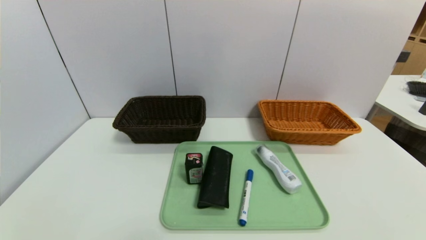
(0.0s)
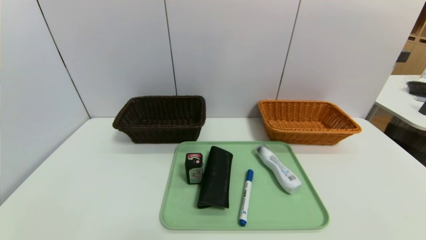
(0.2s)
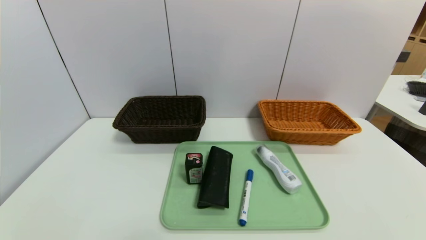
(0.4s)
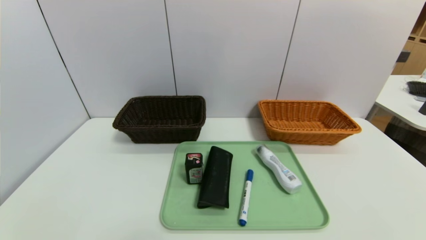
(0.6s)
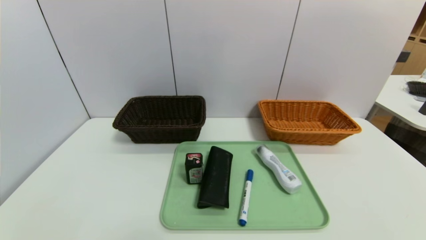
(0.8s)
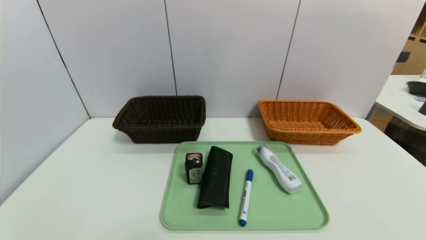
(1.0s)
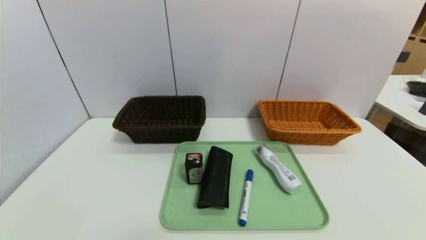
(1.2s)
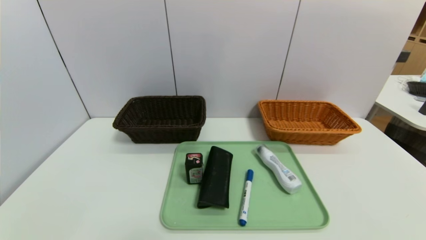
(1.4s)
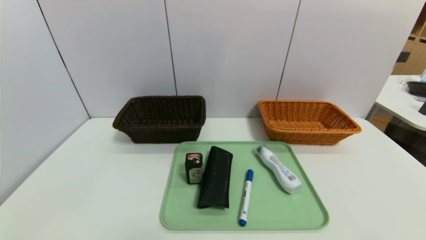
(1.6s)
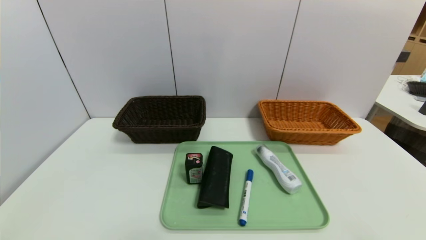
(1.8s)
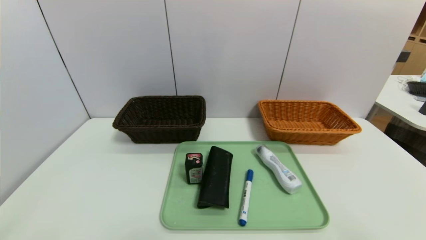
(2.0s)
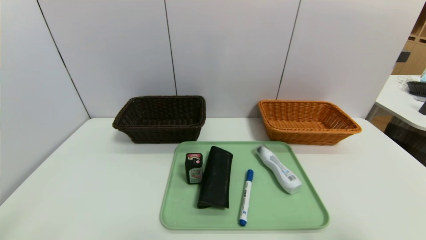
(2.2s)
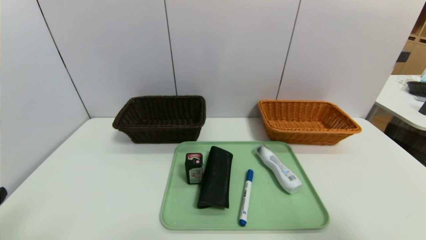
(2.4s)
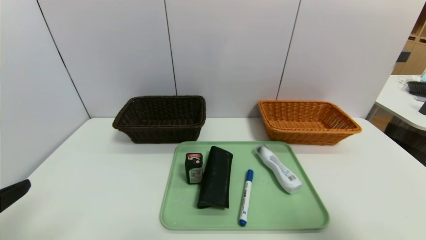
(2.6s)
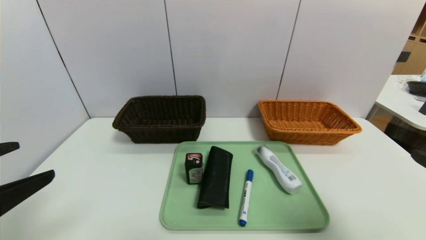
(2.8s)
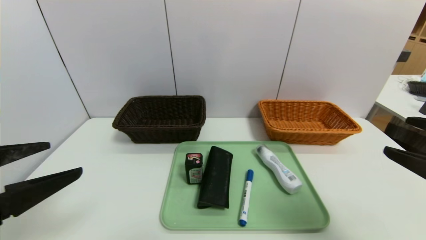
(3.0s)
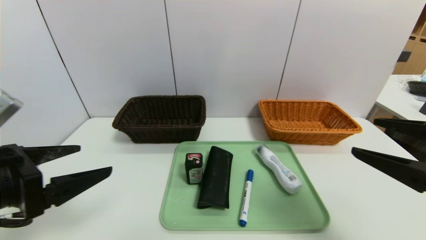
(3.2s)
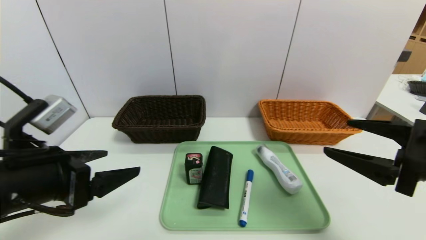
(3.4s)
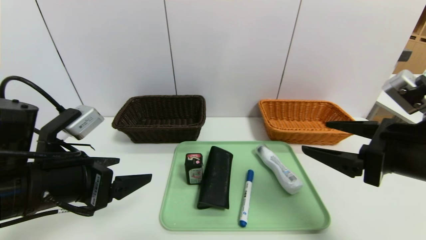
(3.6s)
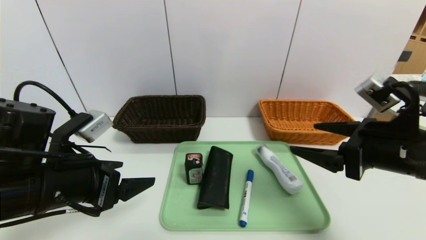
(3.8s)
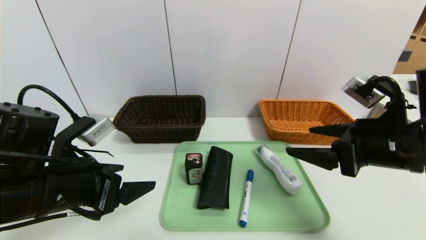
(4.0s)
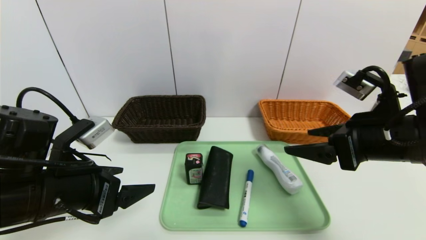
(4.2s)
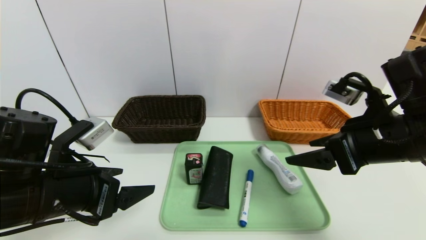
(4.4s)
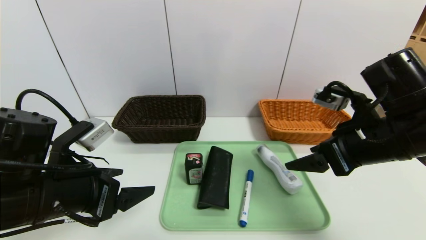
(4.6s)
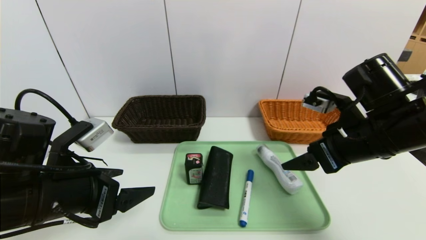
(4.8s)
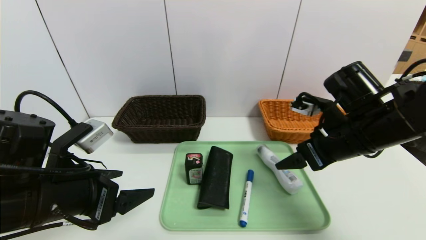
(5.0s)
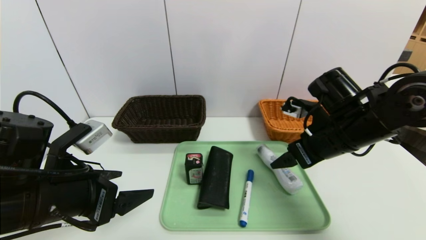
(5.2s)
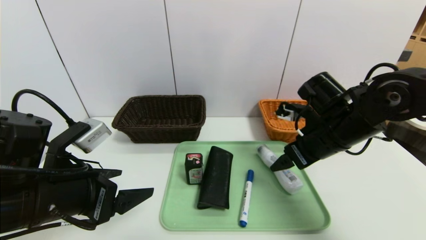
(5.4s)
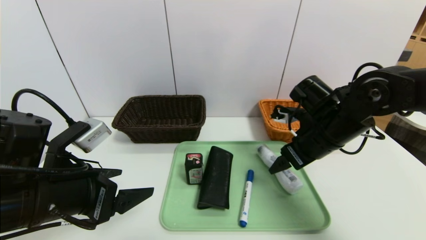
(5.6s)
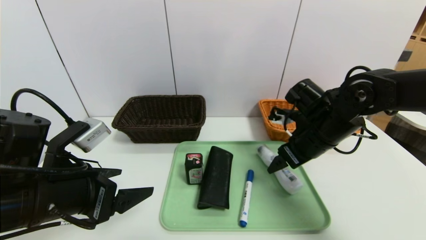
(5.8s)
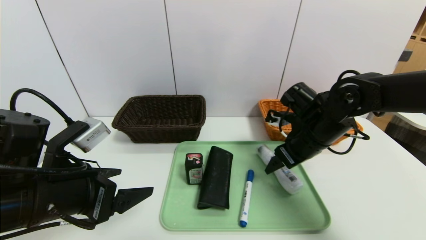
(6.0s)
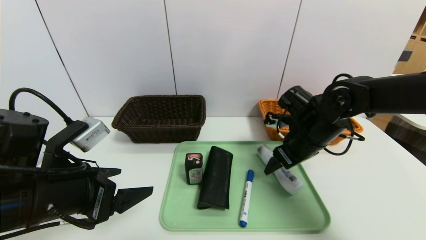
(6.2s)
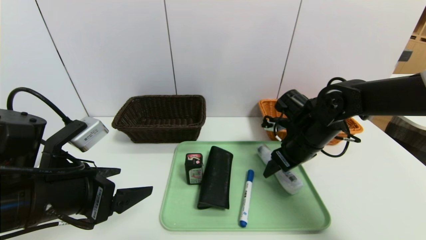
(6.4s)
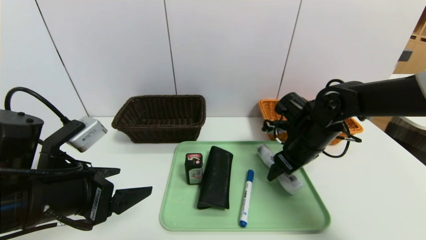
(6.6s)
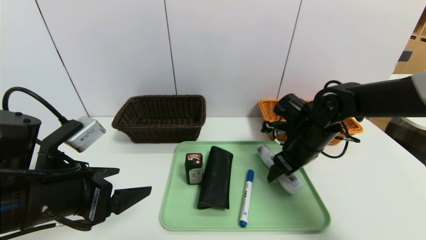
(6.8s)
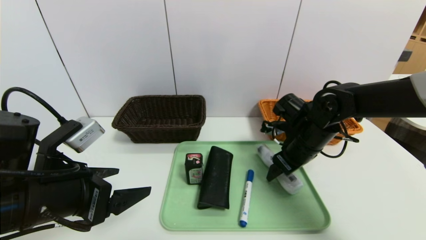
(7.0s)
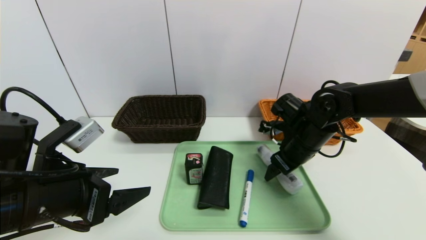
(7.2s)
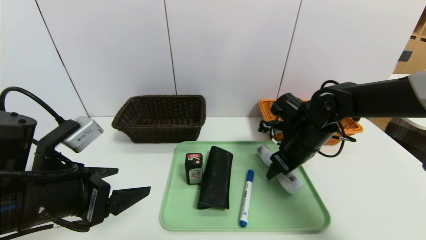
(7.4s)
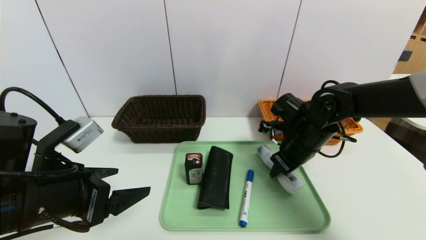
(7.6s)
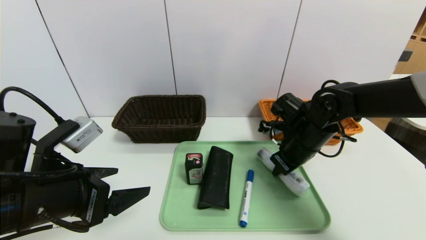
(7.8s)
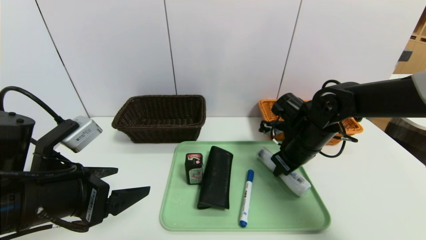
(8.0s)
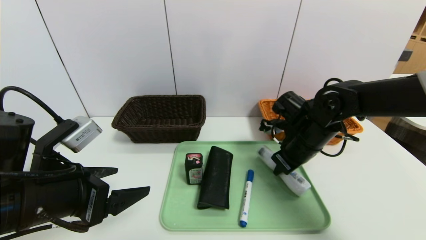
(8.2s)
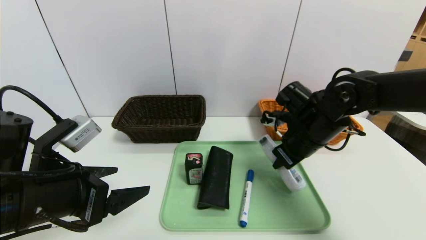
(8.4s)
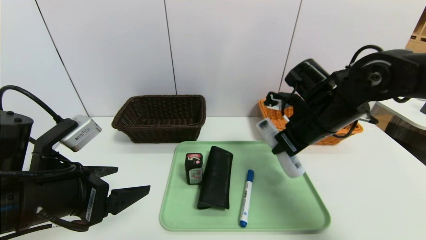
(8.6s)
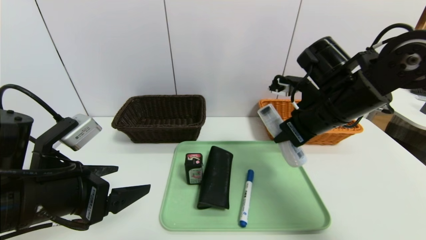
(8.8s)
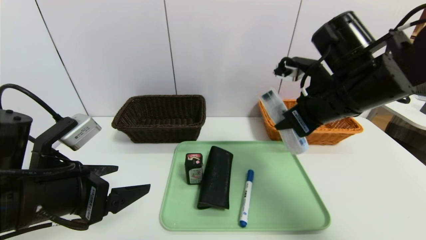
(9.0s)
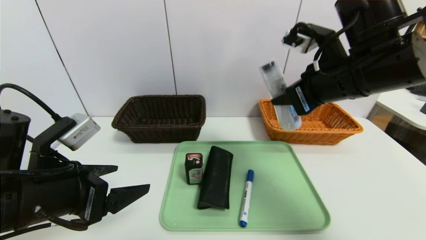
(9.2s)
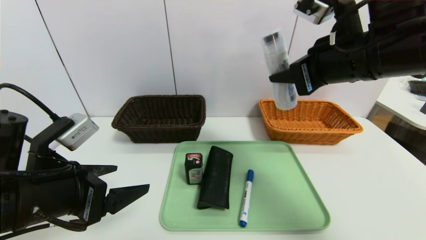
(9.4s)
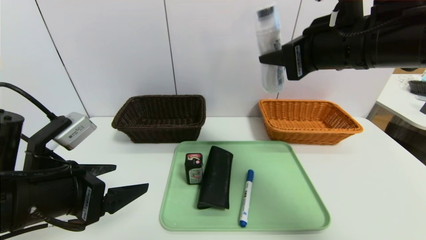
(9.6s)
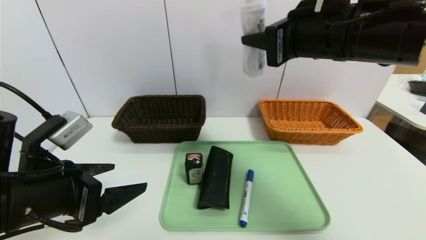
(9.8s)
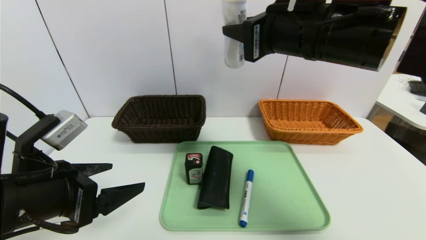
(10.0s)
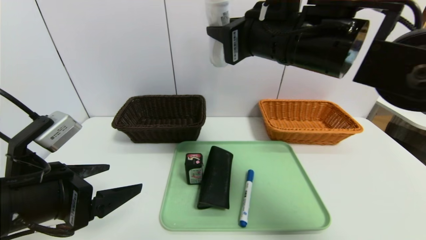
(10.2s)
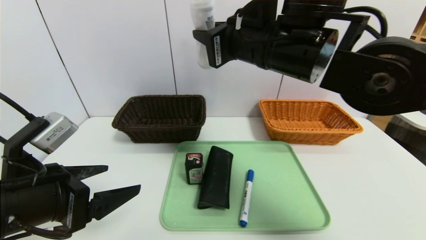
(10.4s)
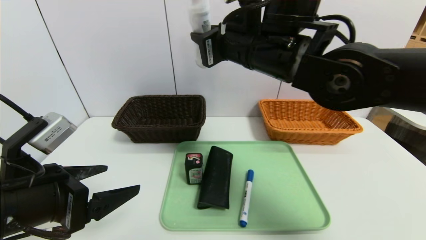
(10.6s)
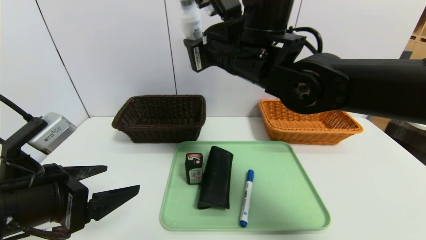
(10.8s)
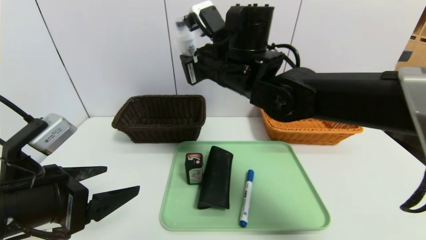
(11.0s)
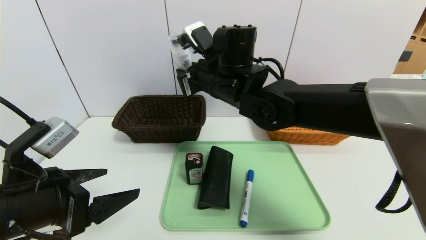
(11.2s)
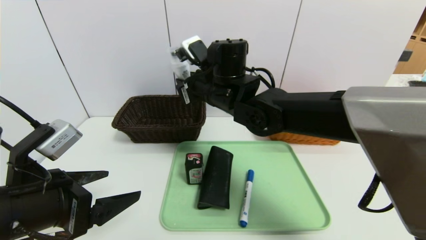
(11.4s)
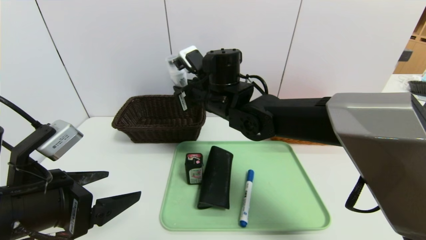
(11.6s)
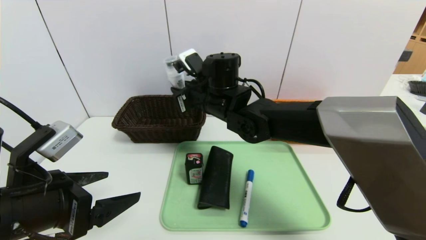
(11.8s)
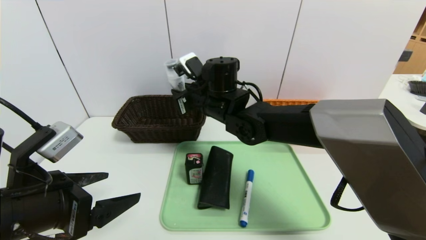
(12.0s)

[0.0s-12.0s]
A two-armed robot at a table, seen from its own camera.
Task of the whole recording: place the food in the right basket with the right gripper, and place the non food items in the left basket with the left gripper.
1.6s to 3.0s: The two grippers go some 15 cm forward and upward.
3.0s to 4.4s: The left gripper travels to the right, forward and downward by roughly 10 cm. The right gripper shifts some 15 cm forward and to the left.
4.4s to 6.0s: The right gripper is displaced forward and downward by some 15 cm.
6.0s to 7.6s: The right gripper closes up.
7.6s to 9.0s: The right gripper travels upward and backward by roughly 15 cm.
9.0s to 10.4s: The right gripper shifts approximately 15 cm to the left and upward.
10.4s to 12.0s: The right gripper goes some 15 cm downward, forward and to the left.

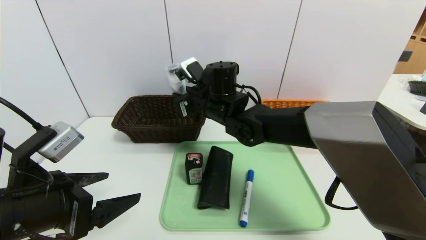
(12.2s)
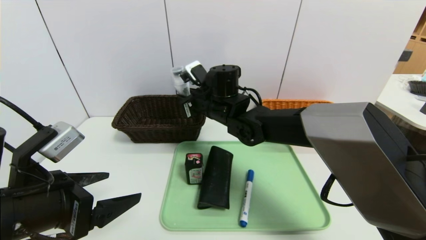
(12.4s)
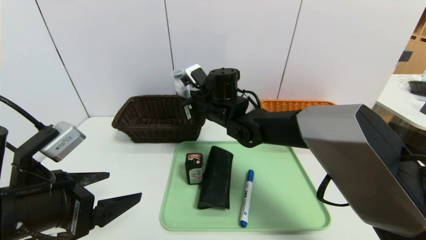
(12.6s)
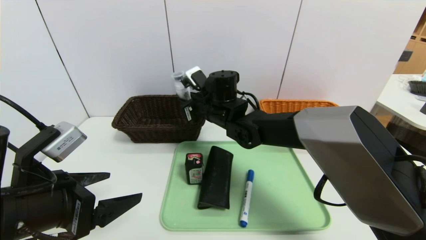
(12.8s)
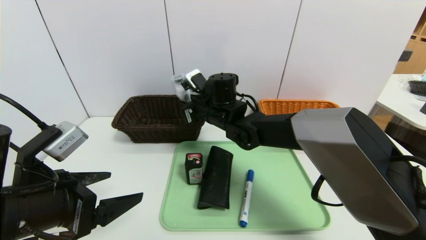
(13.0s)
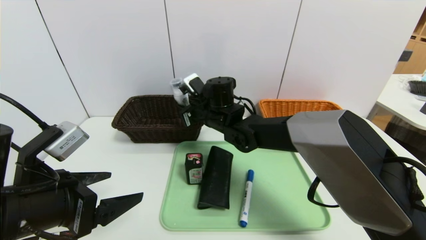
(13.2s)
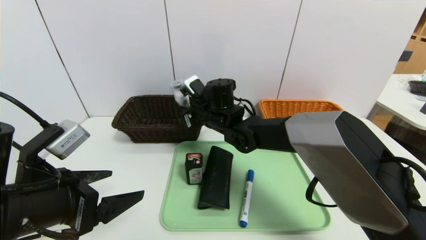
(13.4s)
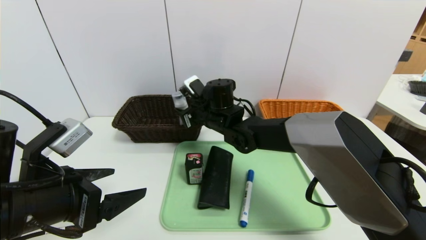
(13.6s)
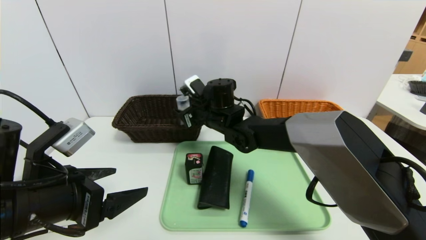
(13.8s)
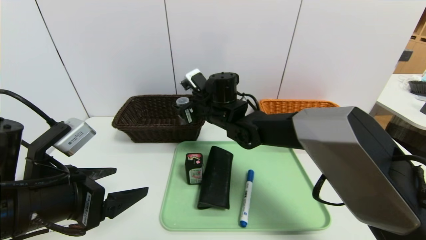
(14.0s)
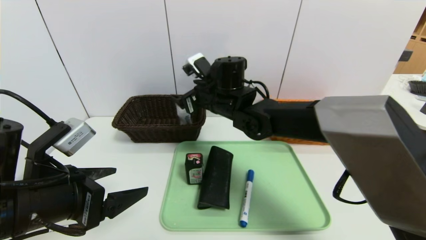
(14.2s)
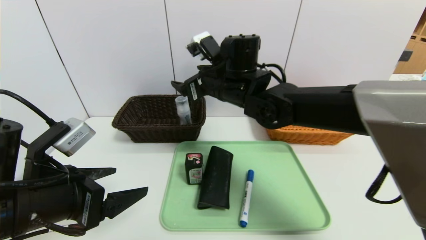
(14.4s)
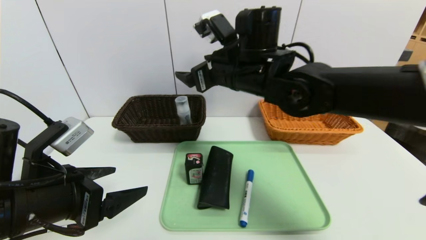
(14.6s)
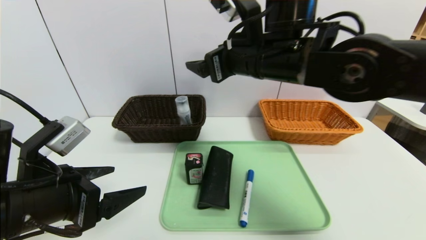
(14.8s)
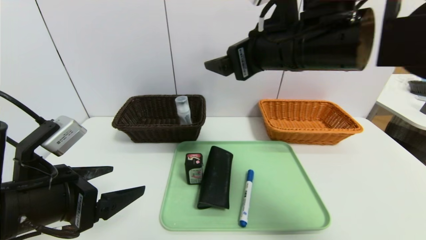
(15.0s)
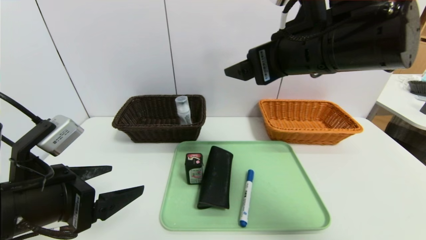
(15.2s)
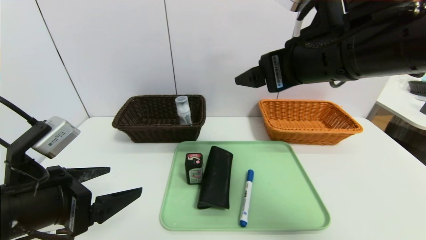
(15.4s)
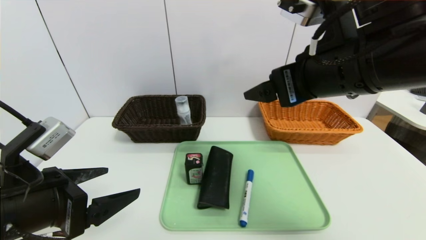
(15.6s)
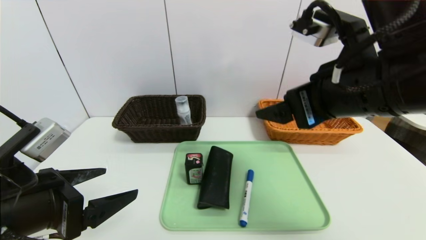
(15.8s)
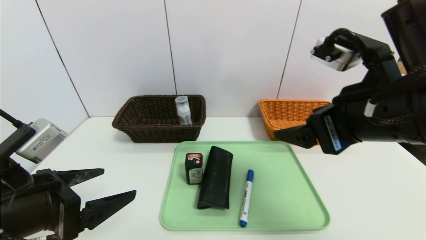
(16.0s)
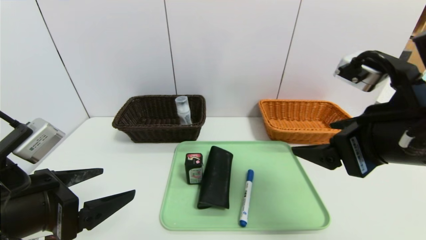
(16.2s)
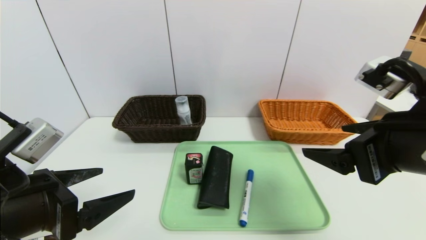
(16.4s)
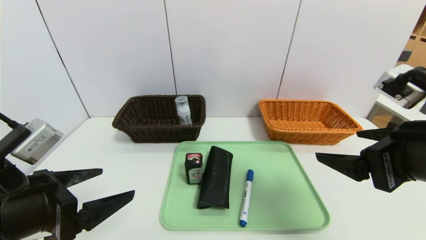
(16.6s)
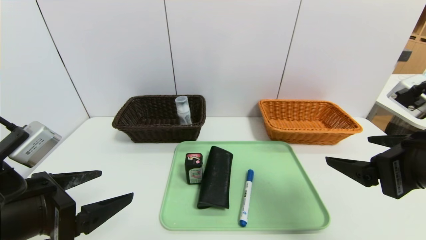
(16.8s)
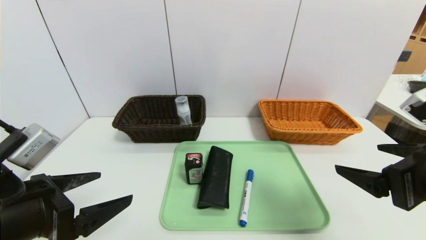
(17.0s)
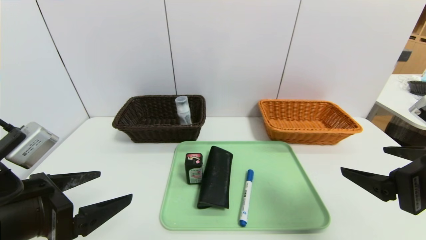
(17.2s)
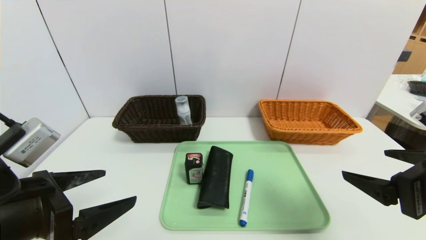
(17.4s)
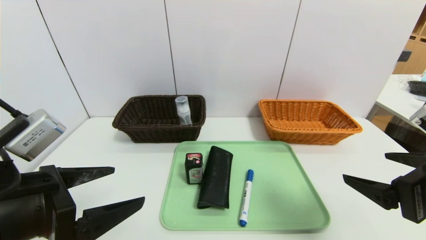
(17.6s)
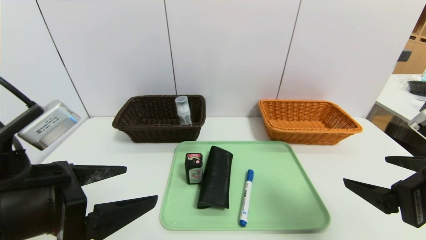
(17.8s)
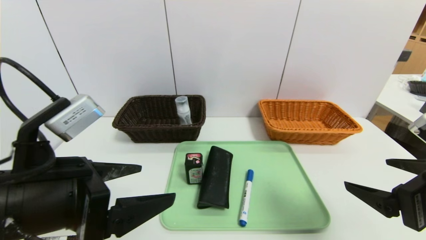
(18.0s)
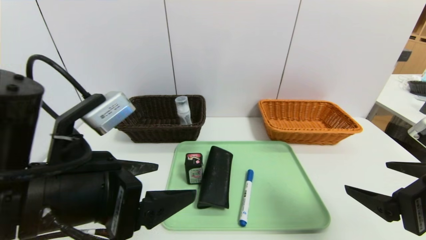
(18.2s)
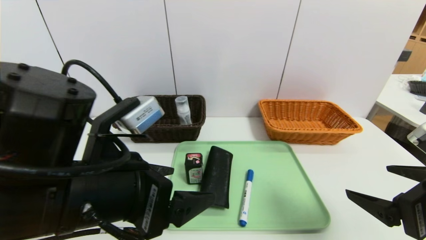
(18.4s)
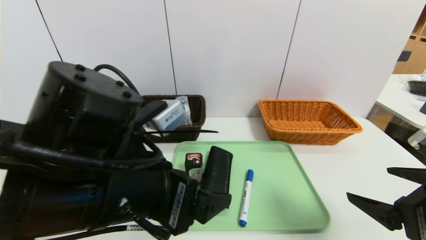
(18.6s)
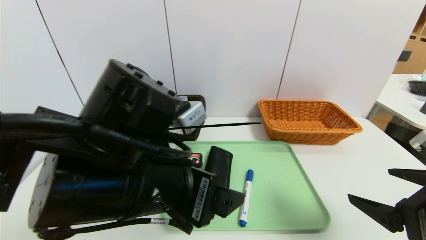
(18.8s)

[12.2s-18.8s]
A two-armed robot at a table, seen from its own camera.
Task of the whole recording: place the food in the right basket with the right gripper, and place the non food items in the left basket with the left gripper.
12.2s to 13.8s: The right gripper opens up.
13.8s to 15.4s: The right gripper travels upward, backward and to the right by about 30 cm, and opens.
15.4s to 17.2s: The right gripper is displaced to the right, downward and backward by some 20 cm.
17.2s to 18.8s: The left gripper shifts roughly 15 cm to the right.
